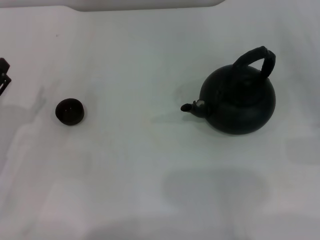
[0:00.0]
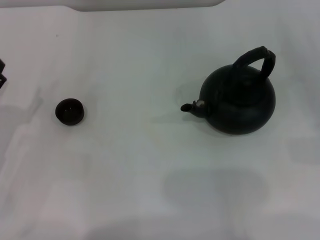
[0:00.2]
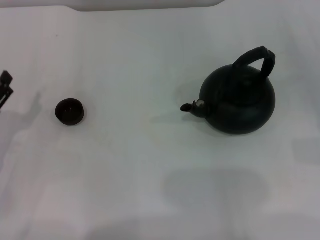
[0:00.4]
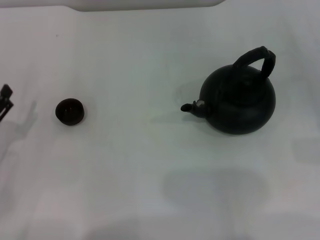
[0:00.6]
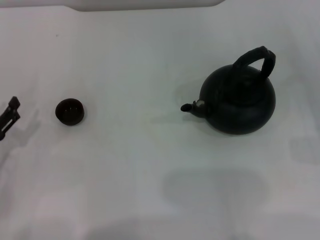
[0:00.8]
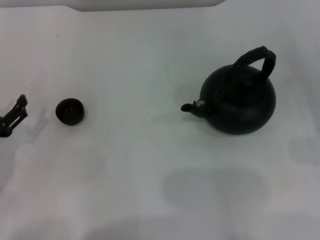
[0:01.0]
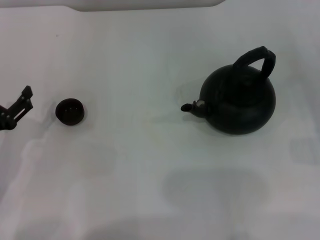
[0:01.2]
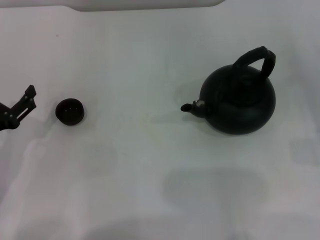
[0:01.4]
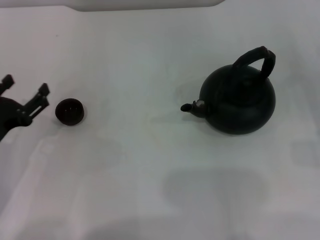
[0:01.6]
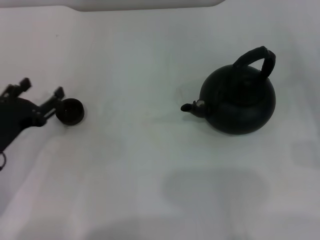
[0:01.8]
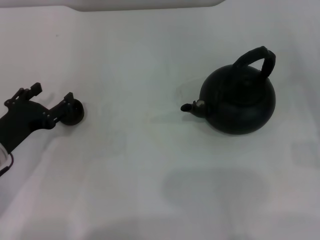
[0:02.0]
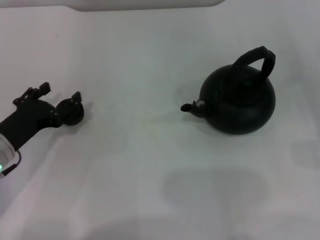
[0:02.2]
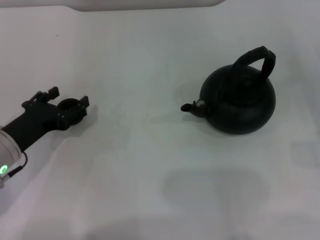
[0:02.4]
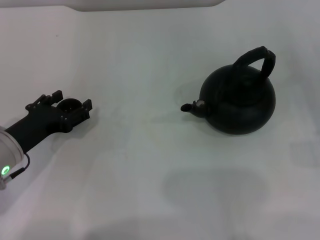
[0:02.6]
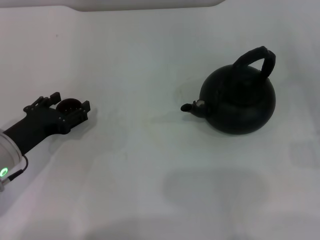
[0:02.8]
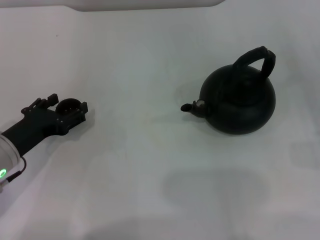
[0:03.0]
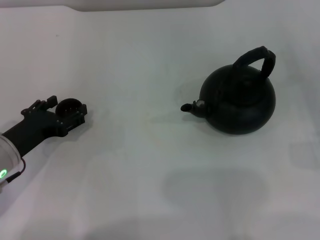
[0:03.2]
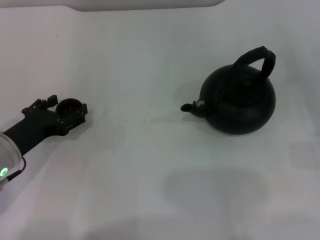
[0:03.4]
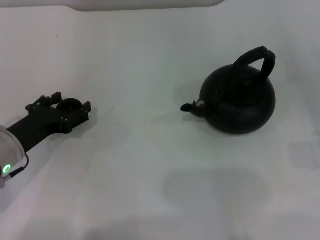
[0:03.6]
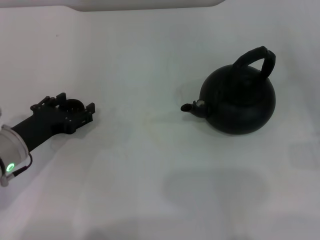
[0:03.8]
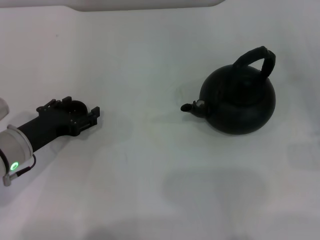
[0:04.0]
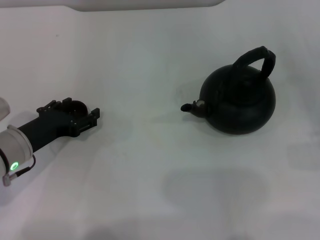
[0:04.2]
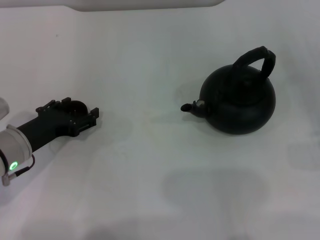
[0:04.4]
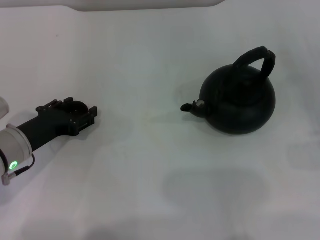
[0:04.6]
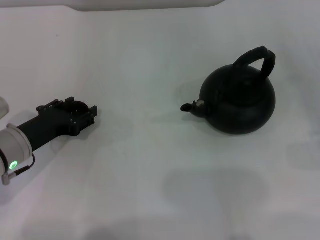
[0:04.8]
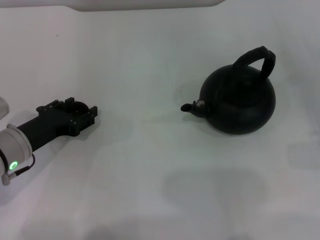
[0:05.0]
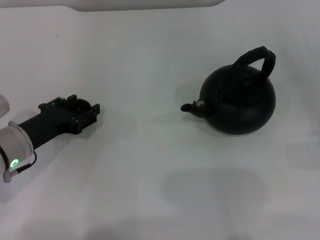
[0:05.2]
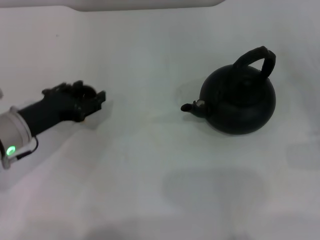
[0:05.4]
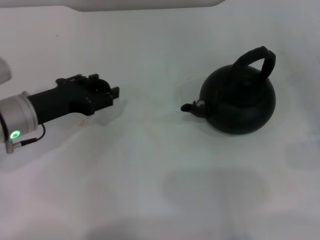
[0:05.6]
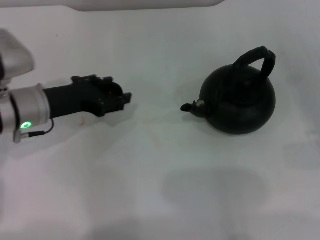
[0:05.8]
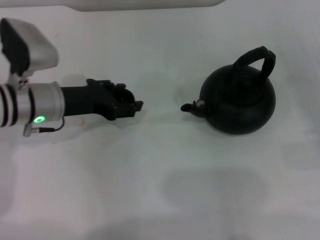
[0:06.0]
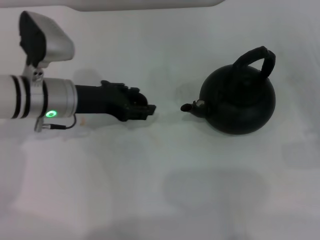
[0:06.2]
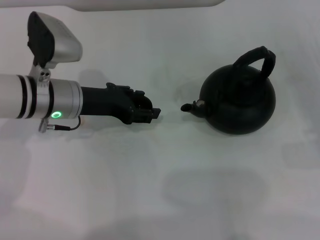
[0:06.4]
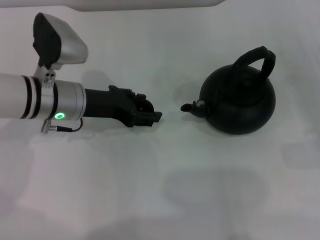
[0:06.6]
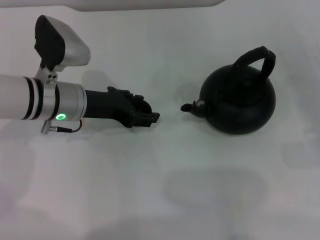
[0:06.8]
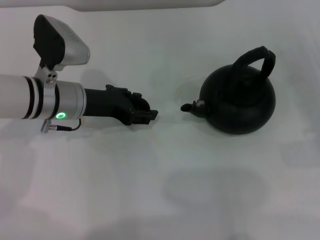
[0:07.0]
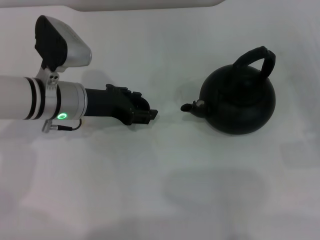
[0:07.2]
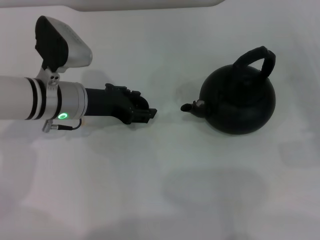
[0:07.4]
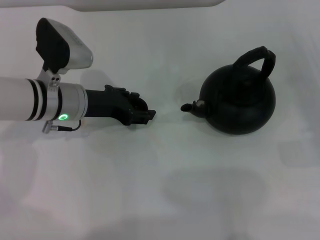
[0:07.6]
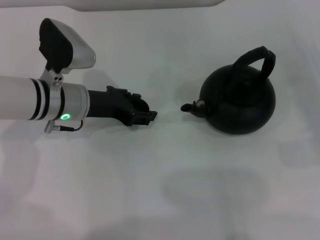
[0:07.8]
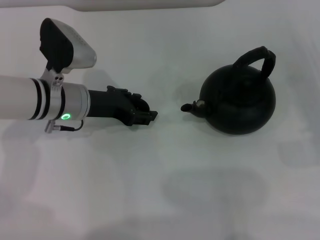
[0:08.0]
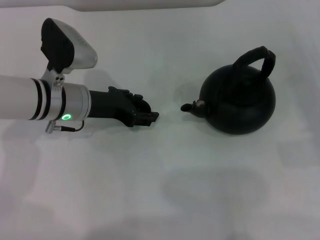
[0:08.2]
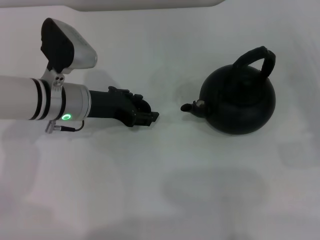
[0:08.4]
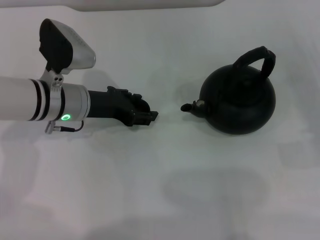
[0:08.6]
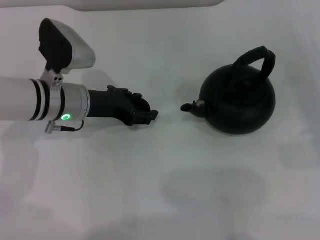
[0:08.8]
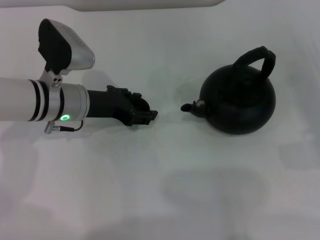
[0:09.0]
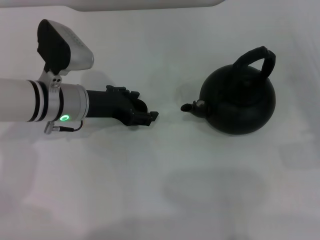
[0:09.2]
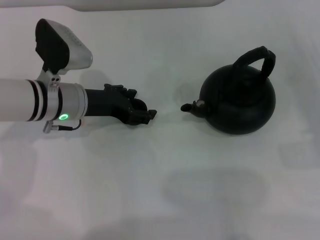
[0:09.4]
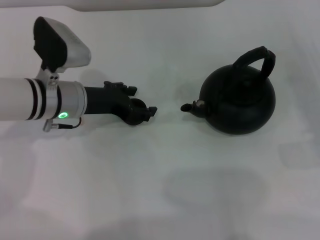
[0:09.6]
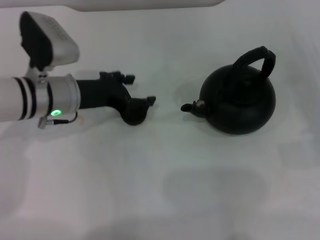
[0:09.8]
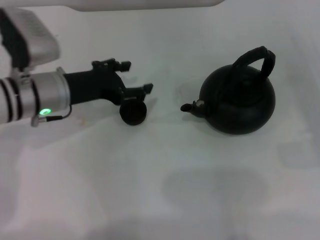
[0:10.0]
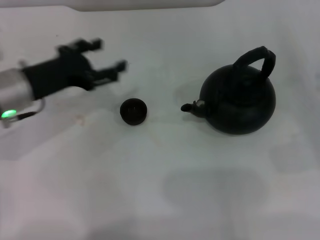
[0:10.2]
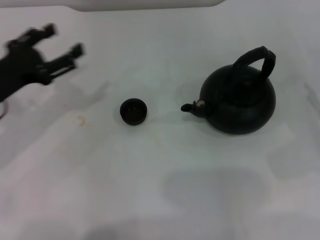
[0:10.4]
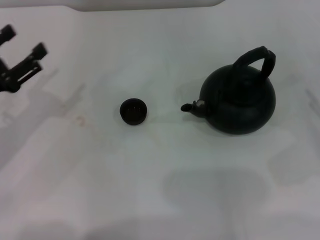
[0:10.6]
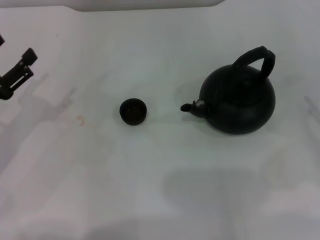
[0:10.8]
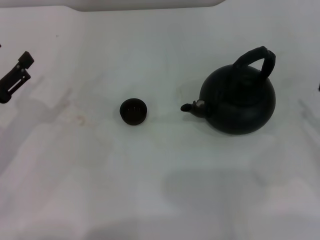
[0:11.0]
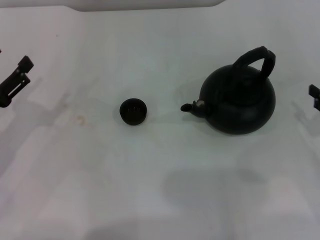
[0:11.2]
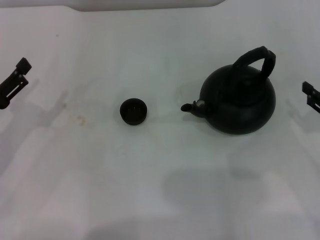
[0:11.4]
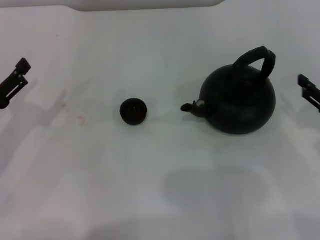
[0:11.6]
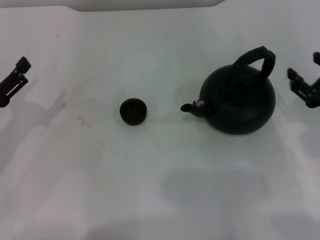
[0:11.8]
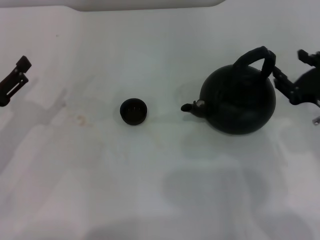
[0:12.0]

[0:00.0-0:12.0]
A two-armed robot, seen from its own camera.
Task of the whole recording: Grasp the handle of the teapot with one hand and pour tea into the teacup.
Step, 0:00.0 to 0:05.2: Pick up the teacup with the left gripper.
Step, 0:05.4 to 0:10.0: Place the teacup in the center of view with the left gripper.
0:00.0 to 0:01.6: The grippers stay close to where they were, moving slightly.
0:01.6 to 0:03.0: The grippers stay close to where they were, moving slightly.
0:03.0 to 0:04.4: The grippers move only a little.
0:04.4 to 0:06.0: The left gripper moves forward and upward, about 10 cm, and closes its fingers.
0:06.0 to 0:07.6: There are only small adjustments of the grippers.
0:07.6 to 0:09.0: Both grippers stay about where they are.
0:09.0 to 0:10.4: The left gripper goes some 15 cm to the left and backward, and opens its fingers.
0:10.4 to 0:12.0: The right gripper is displaced to the left by approximately 10 cm. The left gripper ends up some 5 cm from where it was.

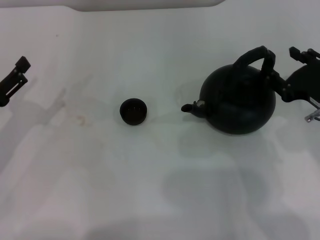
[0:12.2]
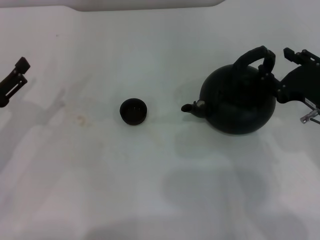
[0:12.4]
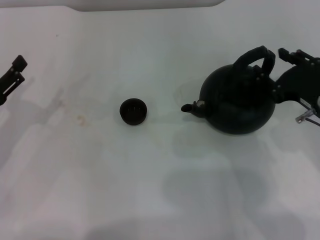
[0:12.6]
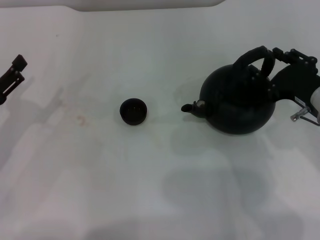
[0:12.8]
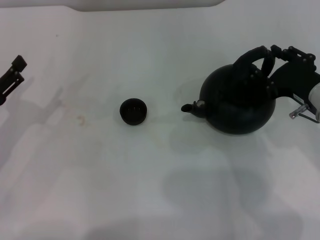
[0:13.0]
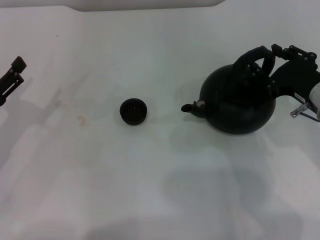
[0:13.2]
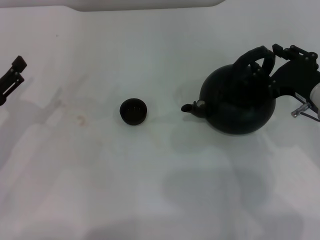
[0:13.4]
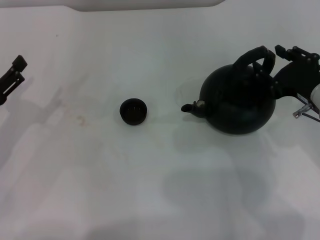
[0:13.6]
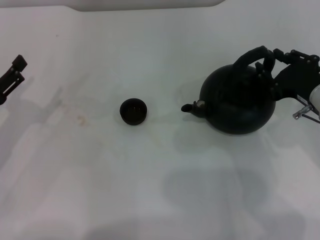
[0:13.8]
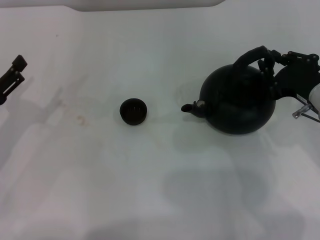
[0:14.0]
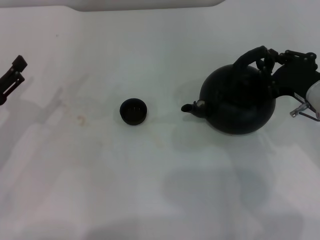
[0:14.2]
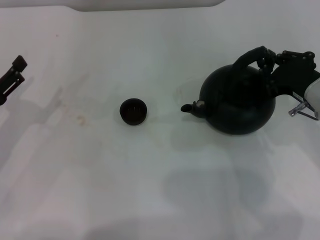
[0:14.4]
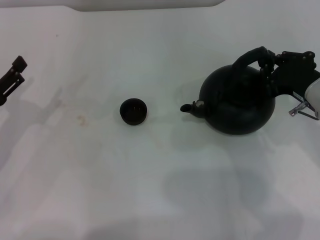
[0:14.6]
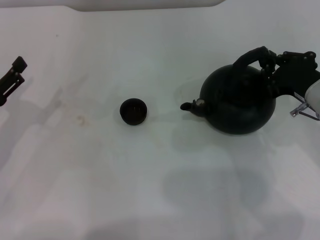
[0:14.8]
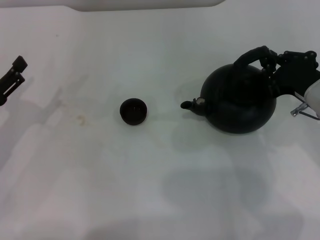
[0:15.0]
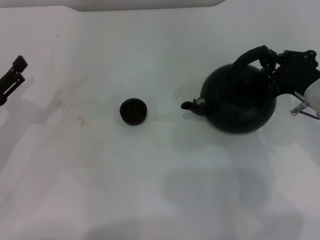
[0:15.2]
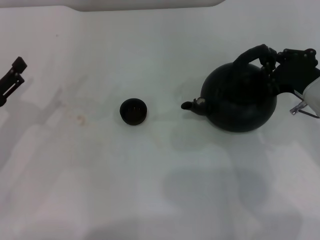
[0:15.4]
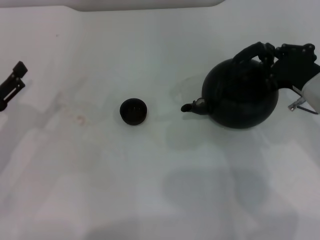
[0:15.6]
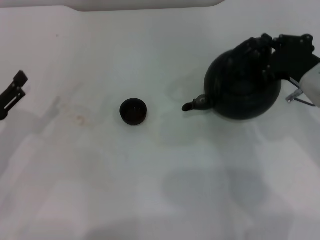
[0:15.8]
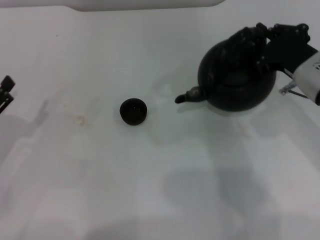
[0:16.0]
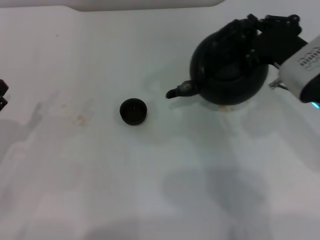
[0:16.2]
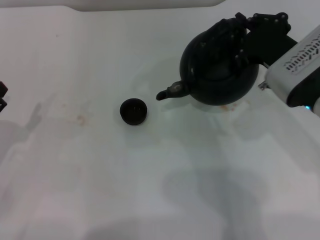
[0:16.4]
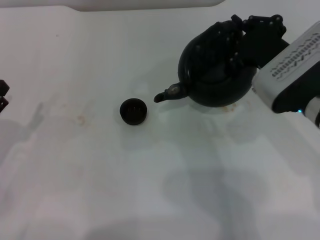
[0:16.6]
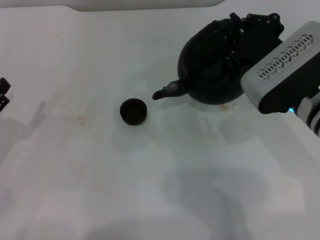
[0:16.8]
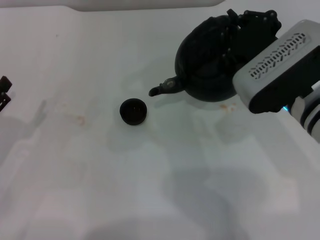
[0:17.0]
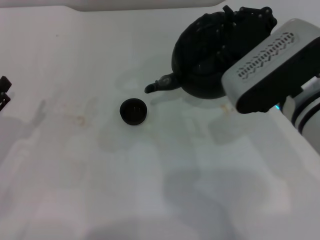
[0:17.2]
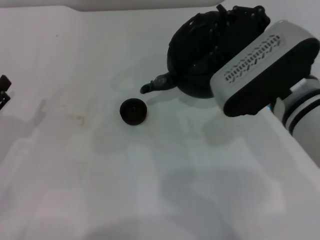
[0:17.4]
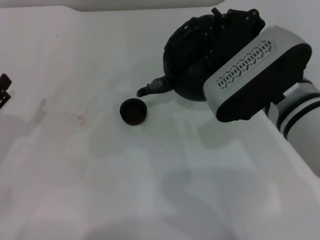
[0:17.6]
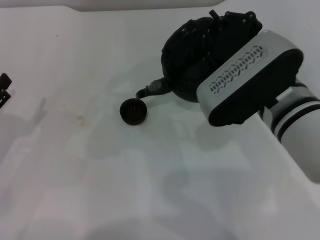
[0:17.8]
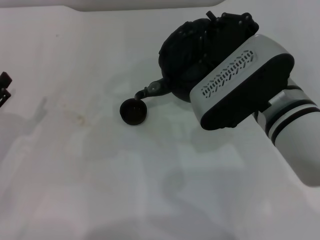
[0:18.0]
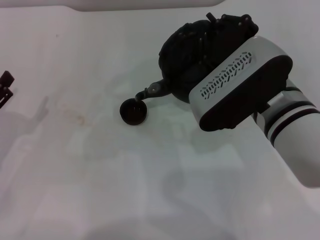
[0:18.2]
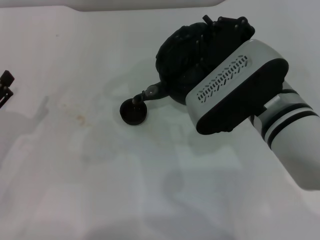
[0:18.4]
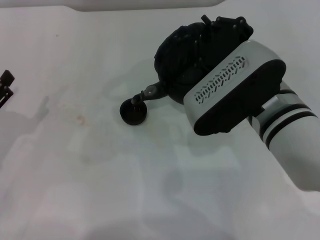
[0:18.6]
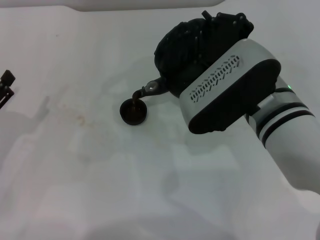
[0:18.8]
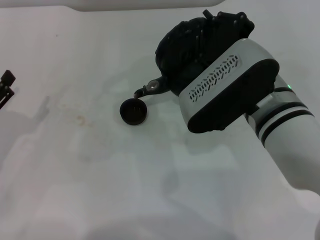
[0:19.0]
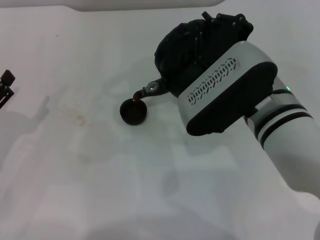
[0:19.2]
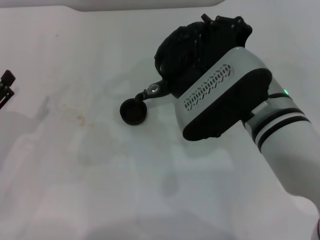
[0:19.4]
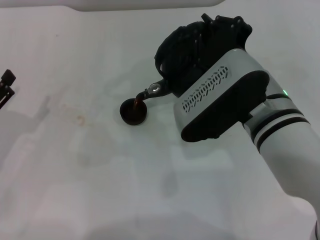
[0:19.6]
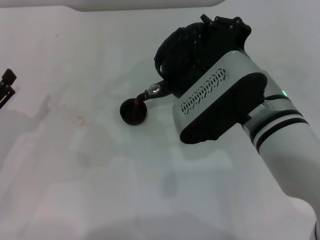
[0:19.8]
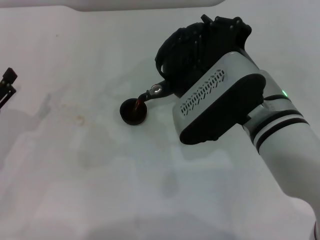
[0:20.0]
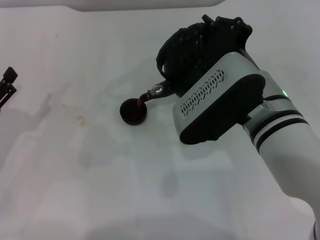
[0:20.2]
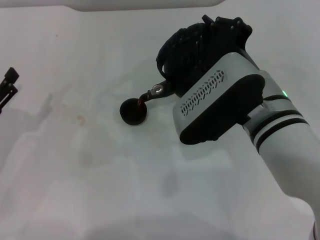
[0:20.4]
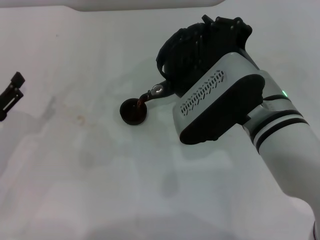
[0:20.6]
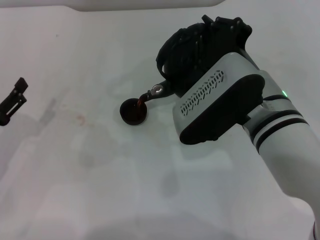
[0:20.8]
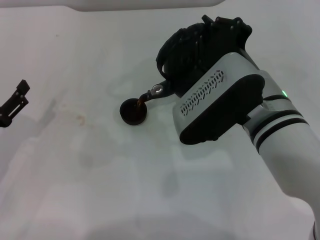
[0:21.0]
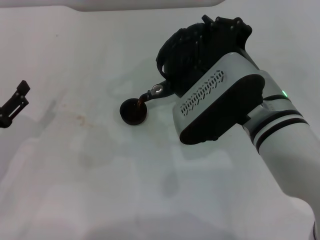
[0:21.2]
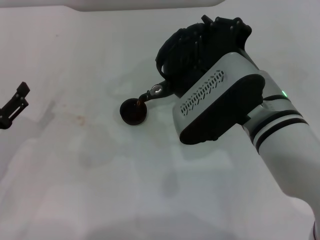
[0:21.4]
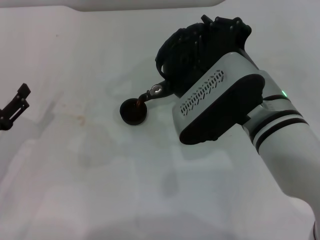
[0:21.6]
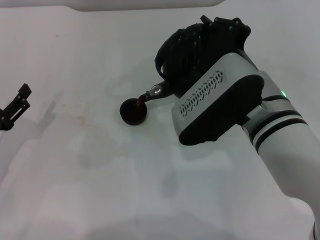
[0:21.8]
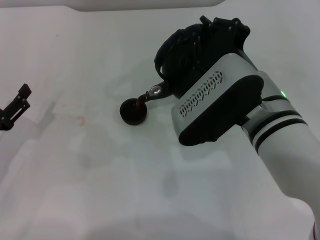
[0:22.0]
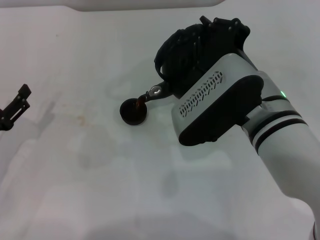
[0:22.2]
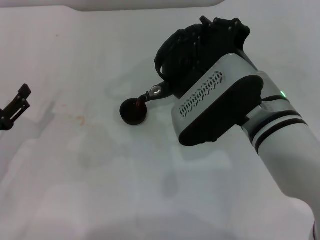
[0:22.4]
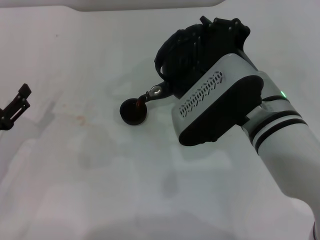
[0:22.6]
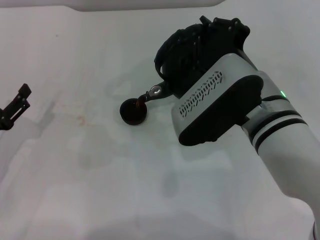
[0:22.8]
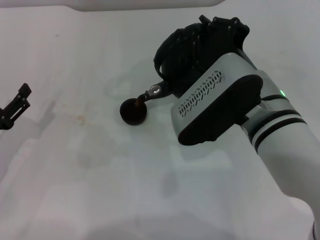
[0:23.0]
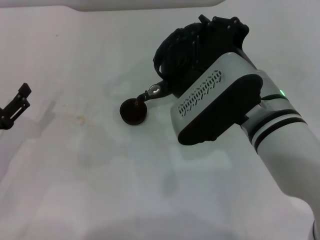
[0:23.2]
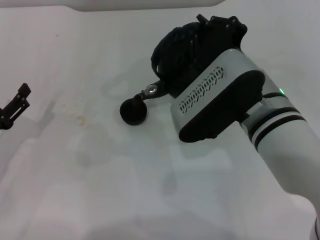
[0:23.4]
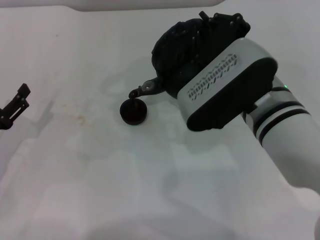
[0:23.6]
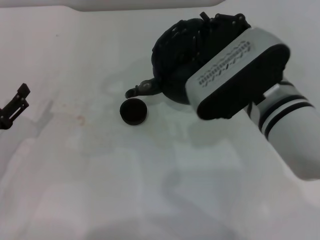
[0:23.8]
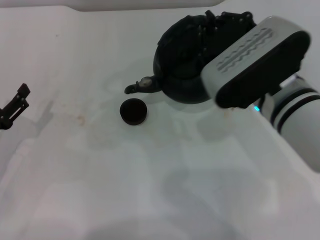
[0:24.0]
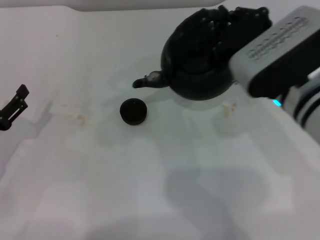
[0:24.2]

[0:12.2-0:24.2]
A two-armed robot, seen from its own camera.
Task of the whole recording: Grasp the handle of the teapot with one hand and pour tea into the teacup.
Step, 0:12.2 to 0:16.0: Pick up the teapot with the right gripper.
Step, 0:16.2 to 0:24.0: Pour tea into the teacup with the right gripper.
0:12.2 to 0:13.8: The grippers stay close to where they were, moving slightly.
0:13.8 to 0:15.2: The right gripper closes its fingers.
0:15.2 to 0:16.6: The right gripper heads to the left, covering roughly 5 cm.
0:16.6 to 0:18.2: The right gripper heads to the left, covering some 5 cm.
0:18.2 to 0:19.8: The grippers stay close to where they were, moving slightly.
0:19.8 to 0:21.2: The two grippers keep their place.
0:21.2 to 0:22.6: Neither gripper changes place.
0:22.6 to 0:24.2: The right gripper moves approximately 5 cm.
